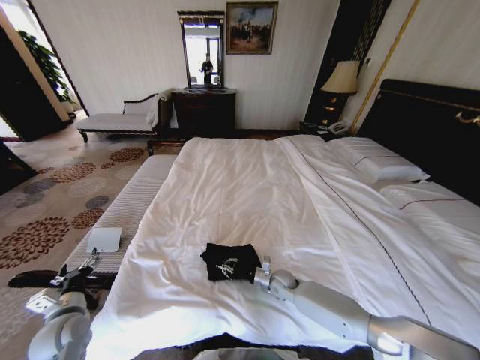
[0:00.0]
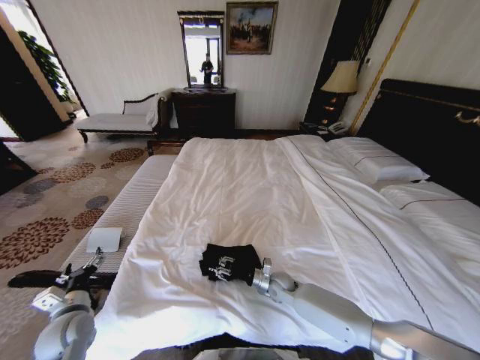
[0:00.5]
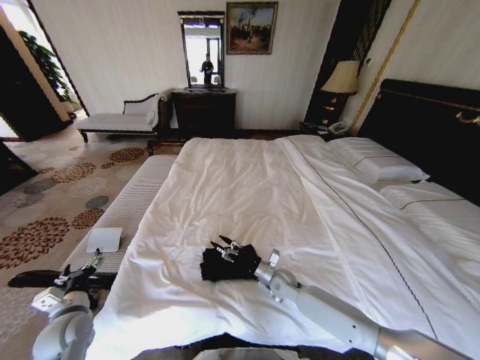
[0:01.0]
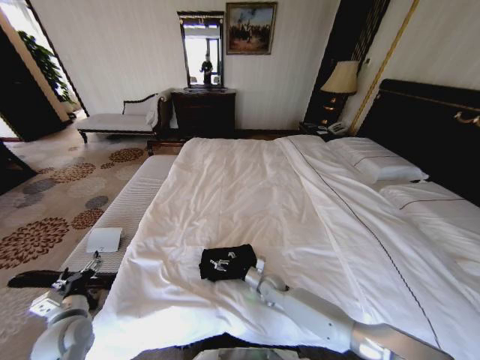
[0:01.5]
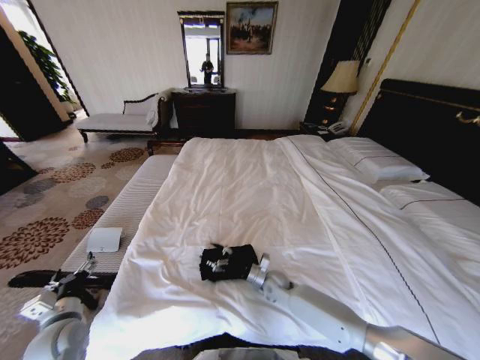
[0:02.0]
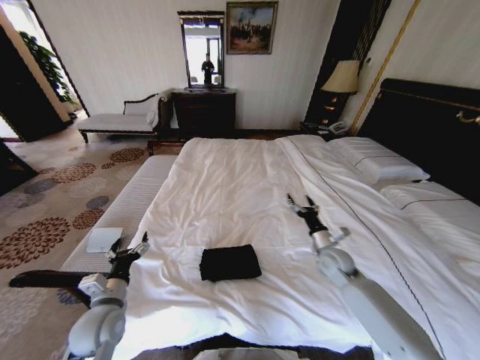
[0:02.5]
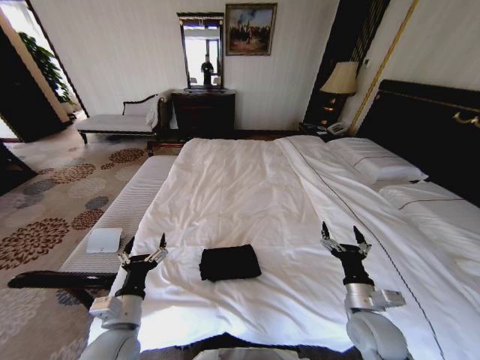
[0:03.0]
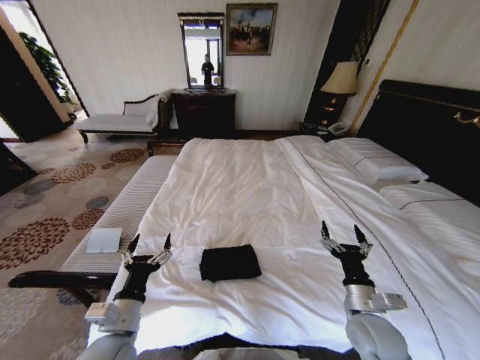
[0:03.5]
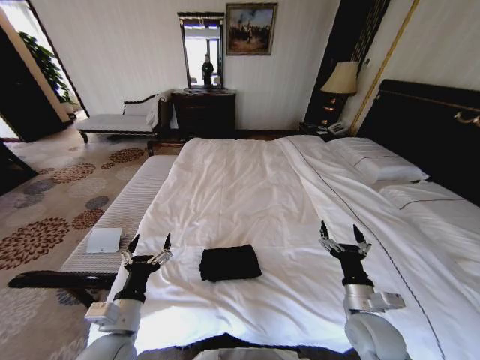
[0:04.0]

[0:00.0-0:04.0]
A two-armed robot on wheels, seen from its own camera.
Task of the whole recording: Fold the clothes on the bed.
0:00.0 to 0:02.0: The right gripper opens up.
0:02.0 to 0:04.0: The left gripper travels to the right by about 15 cm; the right gripper shifts roughly 25 cm backward, to the right and upward.
